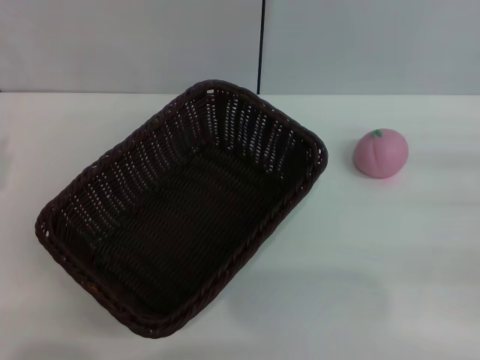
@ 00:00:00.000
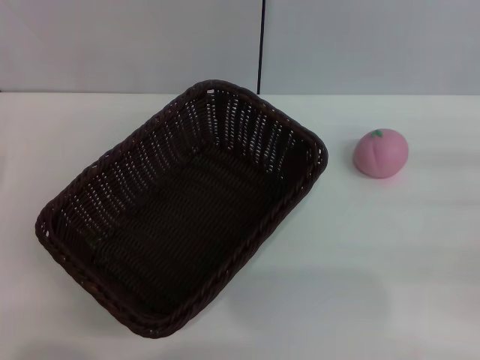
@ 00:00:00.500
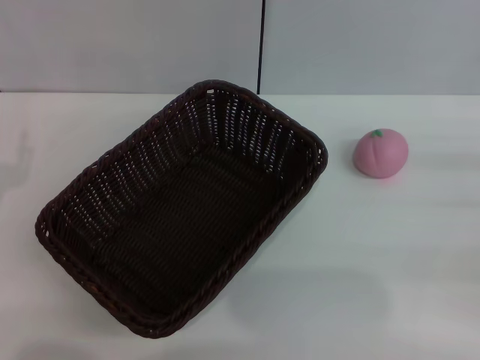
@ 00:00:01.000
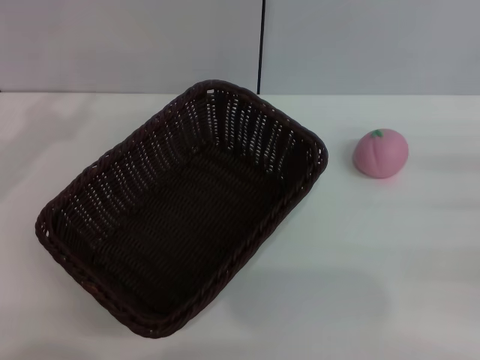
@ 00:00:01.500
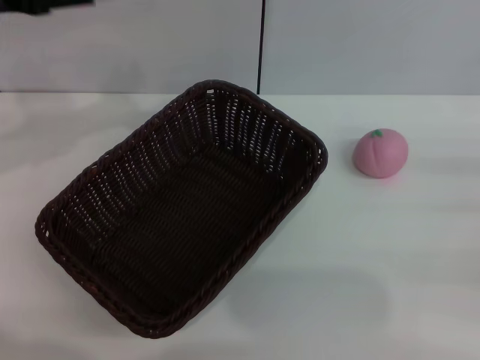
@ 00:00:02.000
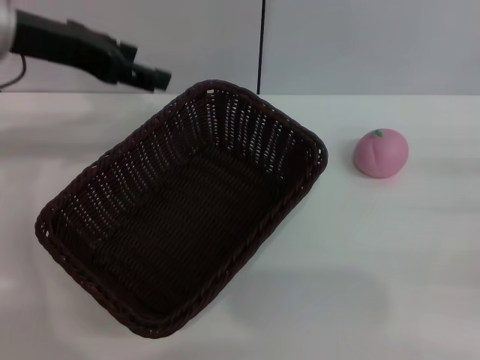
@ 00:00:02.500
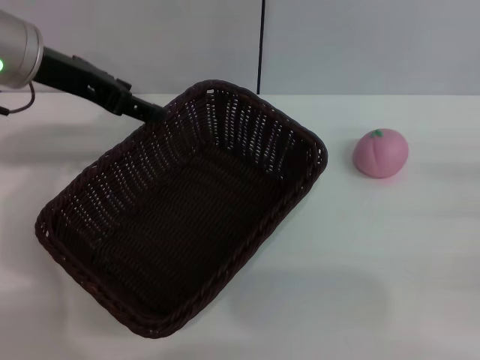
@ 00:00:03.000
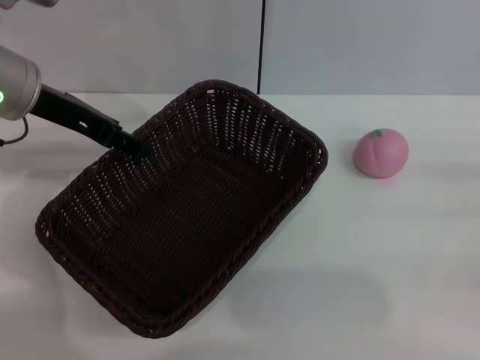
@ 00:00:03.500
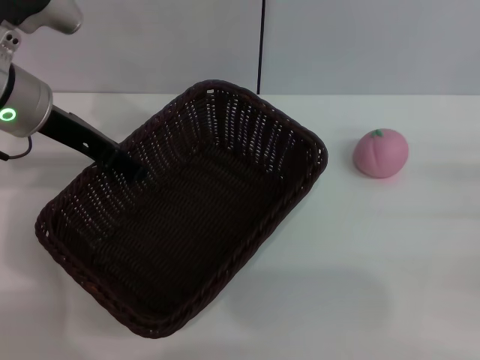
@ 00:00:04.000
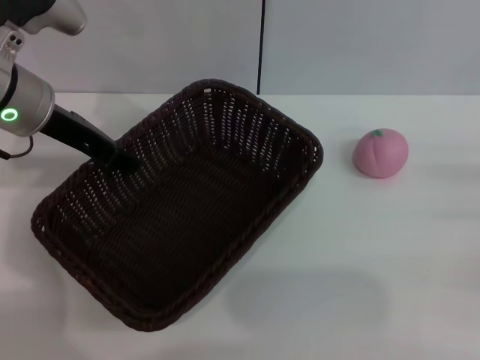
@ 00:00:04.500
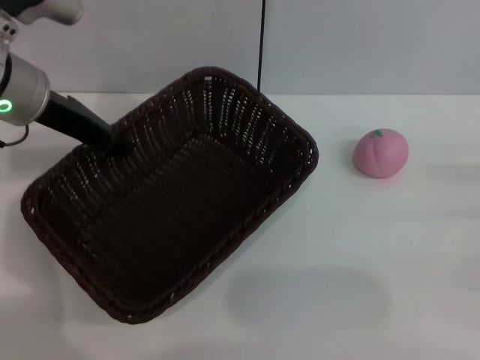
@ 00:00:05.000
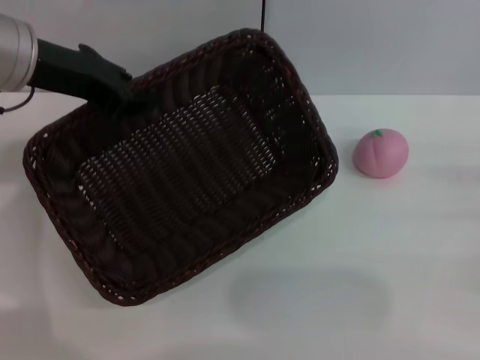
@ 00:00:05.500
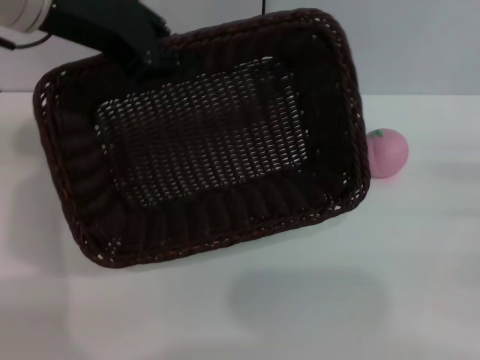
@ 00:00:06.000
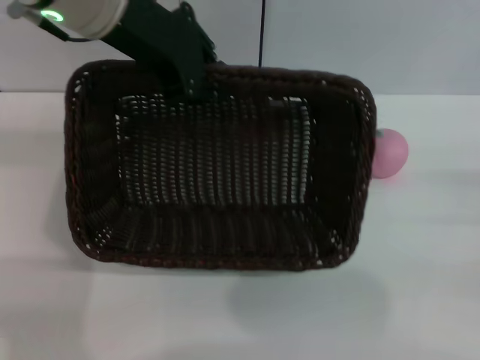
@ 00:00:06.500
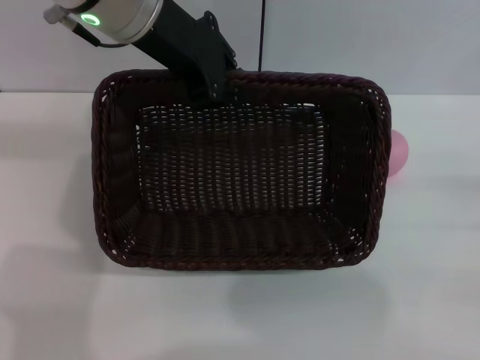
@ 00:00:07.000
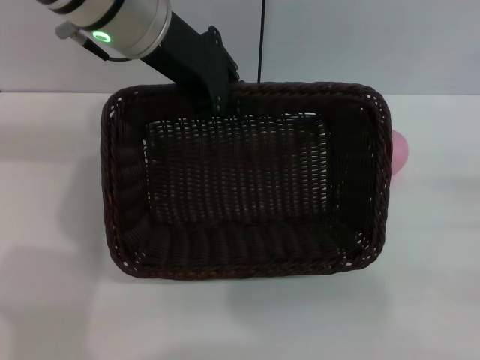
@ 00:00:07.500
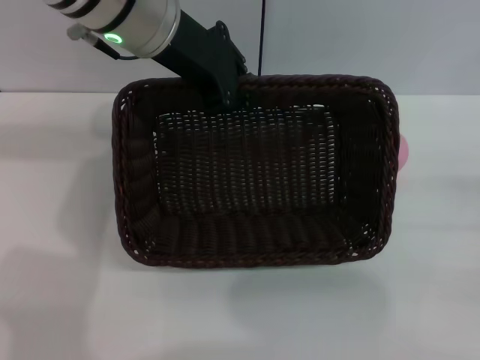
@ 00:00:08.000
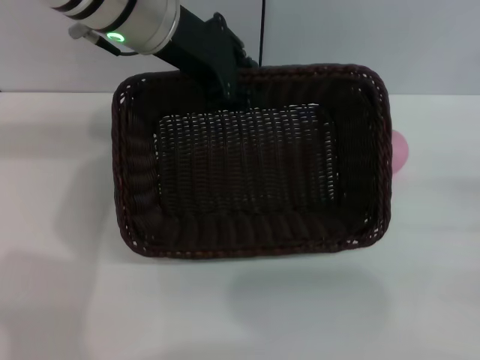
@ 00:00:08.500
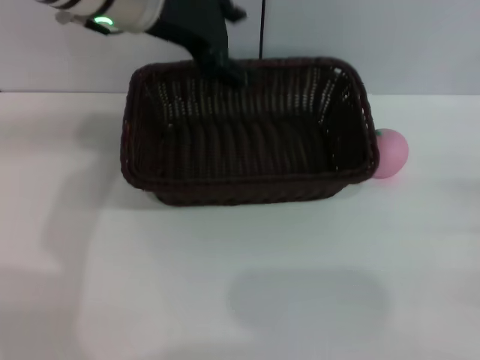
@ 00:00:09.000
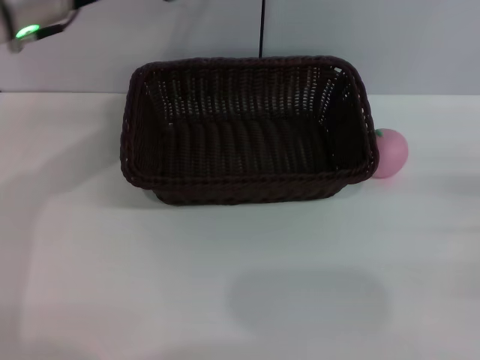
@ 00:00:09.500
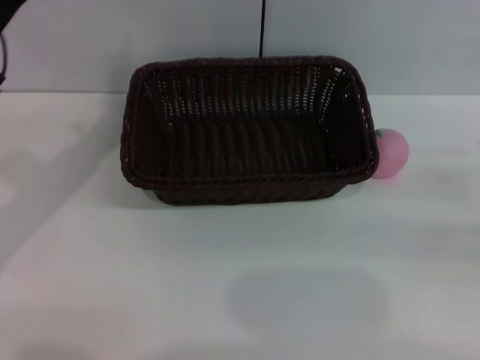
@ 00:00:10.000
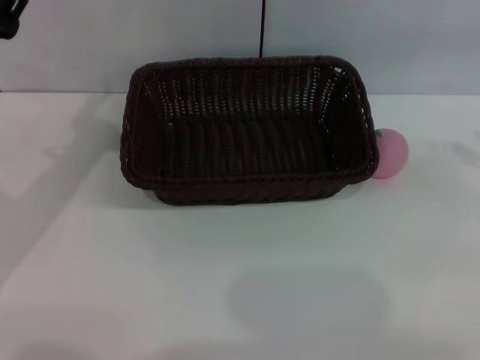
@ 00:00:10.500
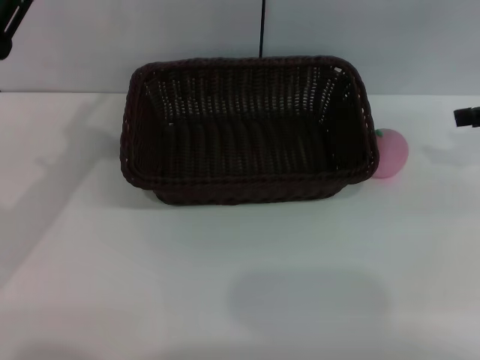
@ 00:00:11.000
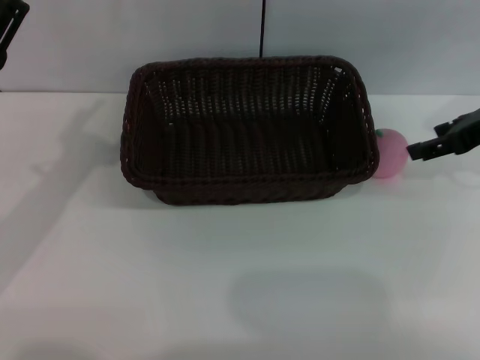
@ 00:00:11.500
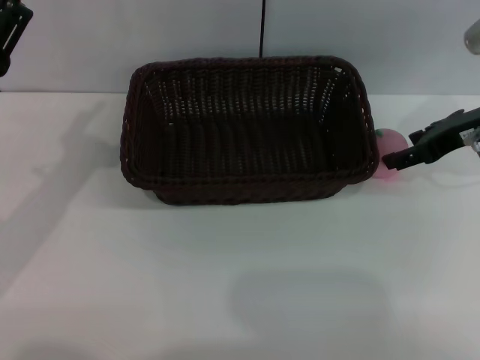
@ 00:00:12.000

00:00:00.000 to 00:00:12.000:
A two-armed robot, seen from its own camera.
Step, 00:00:00.000 to 00:00:05.500: Pick up the dark basket with the left gripper.
Step, 00:00:06.000 to 00:00:09.000: Place the dark basket in the center of view with the right gripper.
00:00:00.000 to 00:00:02.000: The left gripper goes approximately 20 cm forward and upward.
00:00:02.000 to 00:00:04.000: The left gripper travels to the right and downward by about 10 cm.
00:00:04.000 to 00:00:06.000: The left gripper moves upward, roughly 10 cm, and closes its fingers.
00:00:06.000 to 00:00:08.000: The left gripper moves to the right, approximately 10 cm.
00:00:08.000 to 00:00:10.000: The left gripper goes approximately 20 cm to the left, backward and downward, and opens. The right gripper changes place by about 5 cm.
00:00:10.000 to 00:00:12.000: The left gripper goes roughly 5 cm downward. Meanwhile the right gripper heads to the left and forward, covering about 20 cm.

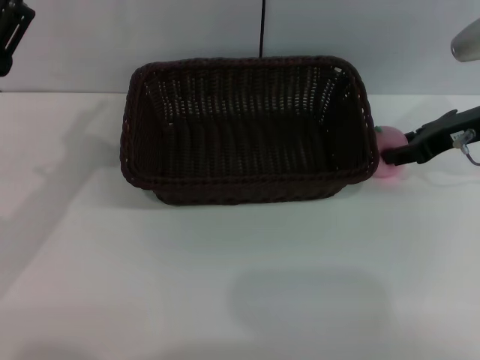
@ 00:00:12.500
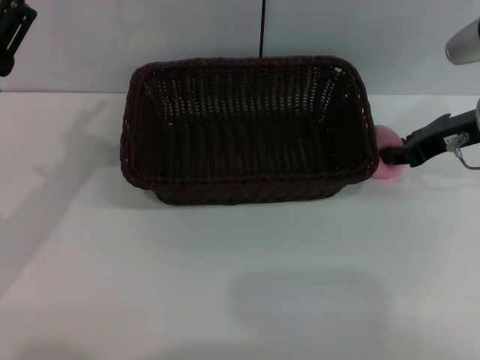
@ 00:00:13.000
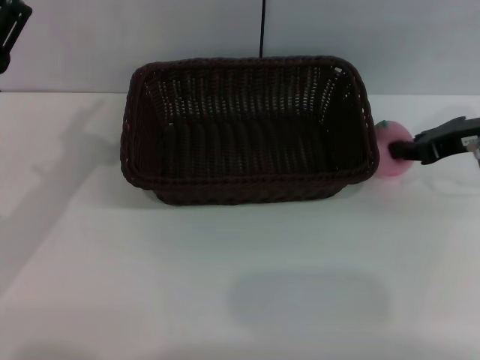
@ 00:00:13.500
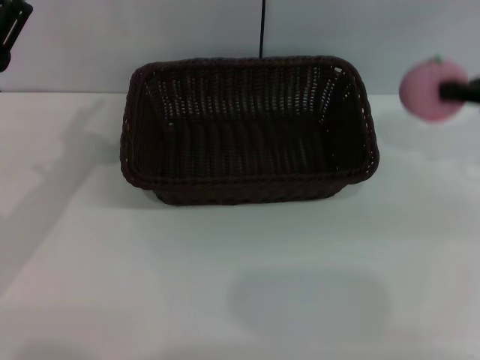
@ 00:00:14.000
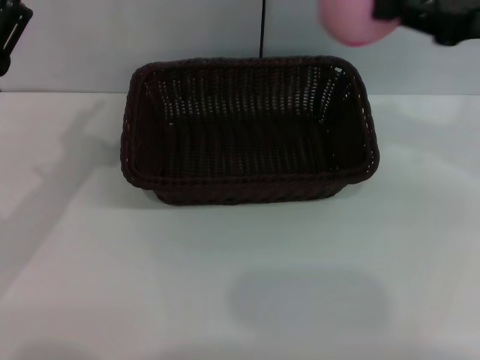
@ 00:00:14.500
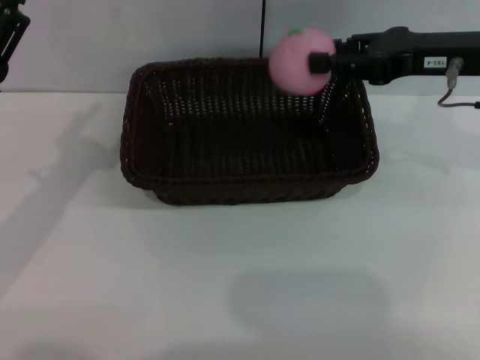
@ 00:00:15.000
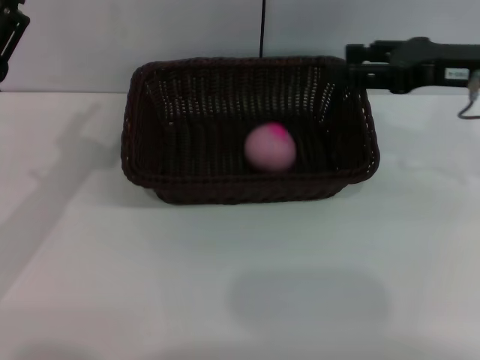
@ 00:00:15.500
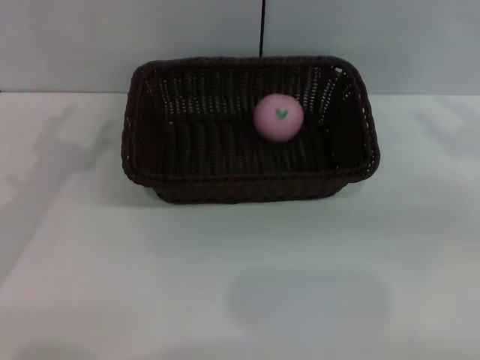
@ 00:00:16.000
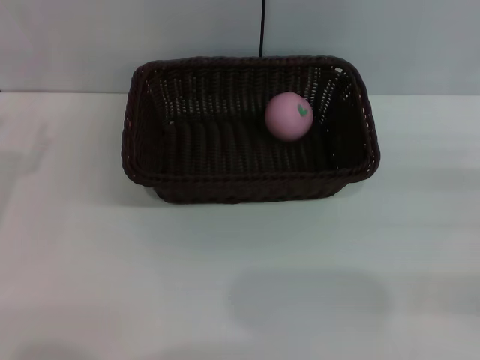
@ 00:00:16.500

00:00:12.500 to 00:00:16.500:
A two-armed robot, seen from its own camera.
00:00:12.500 to 00:00:14.500: The right gripper heads upward, covering roughly 10 cm, and closes up.
00:00:14.500 to 00:00:16.500: The right gripper shifts approximately 25 cm downward, backward and to the right, and opens its fingers. Meanwhile the left gripper moves to the left, approximately 5 cm.
